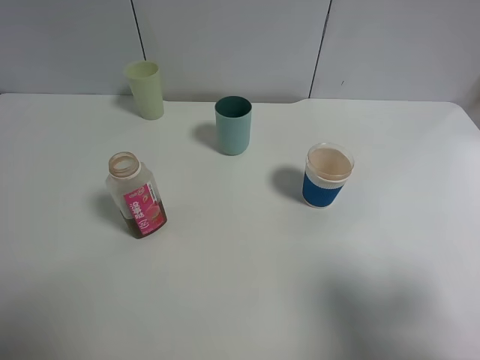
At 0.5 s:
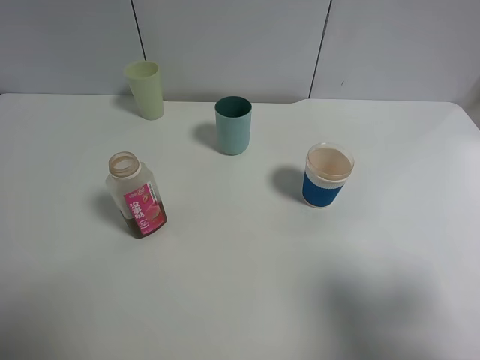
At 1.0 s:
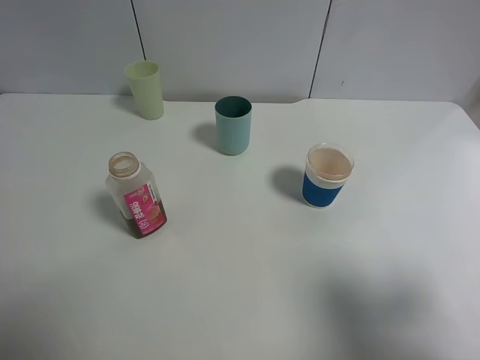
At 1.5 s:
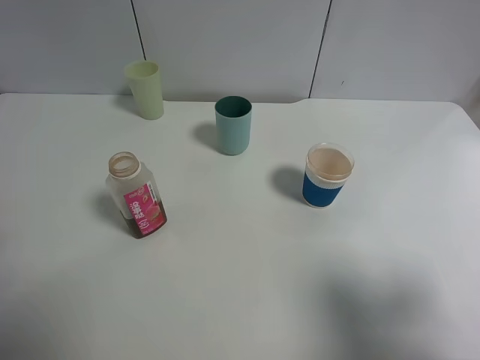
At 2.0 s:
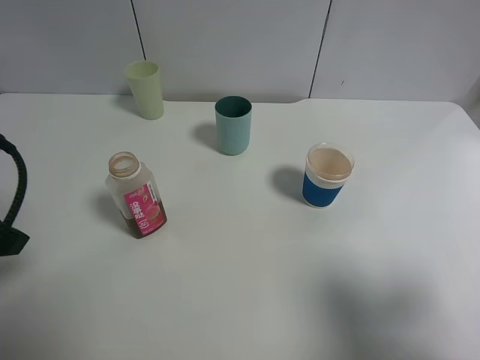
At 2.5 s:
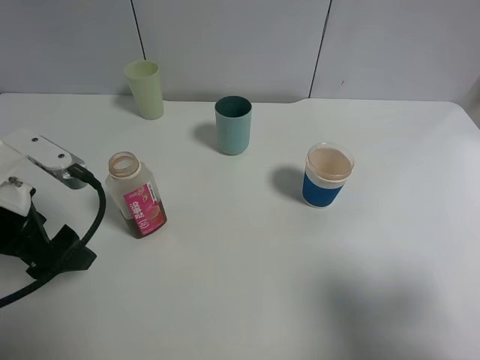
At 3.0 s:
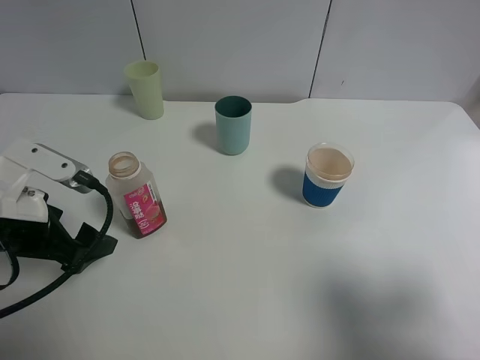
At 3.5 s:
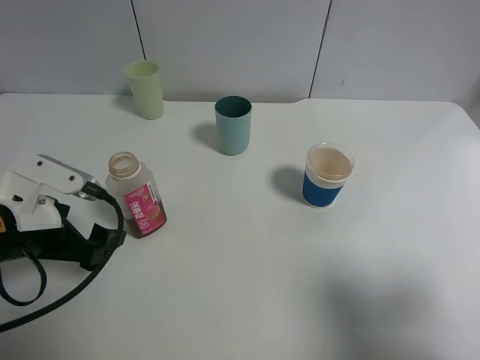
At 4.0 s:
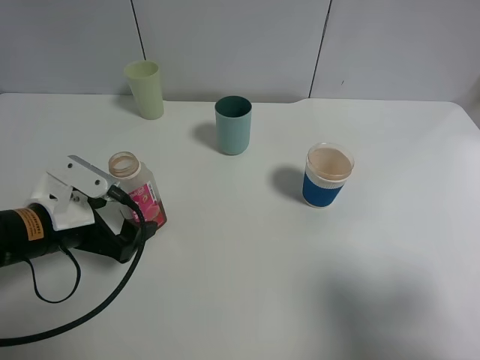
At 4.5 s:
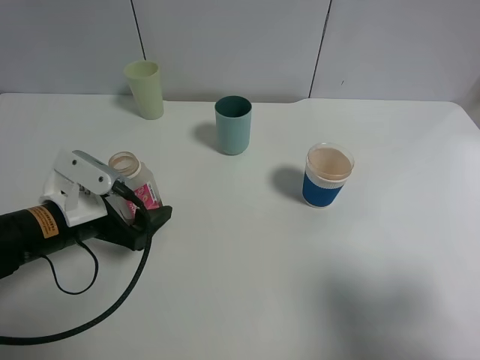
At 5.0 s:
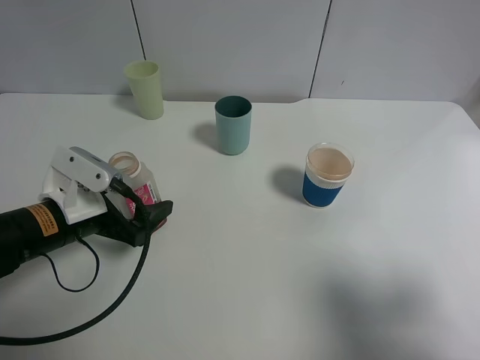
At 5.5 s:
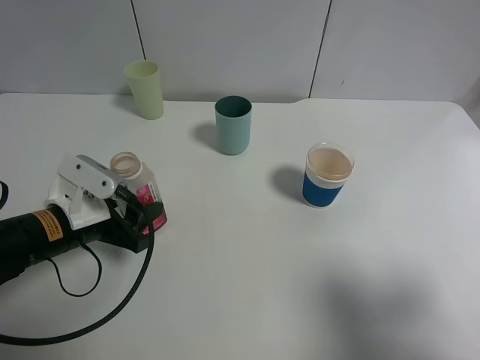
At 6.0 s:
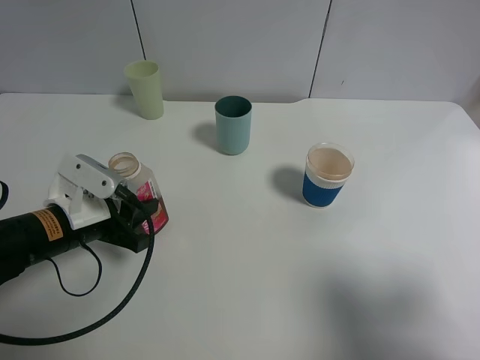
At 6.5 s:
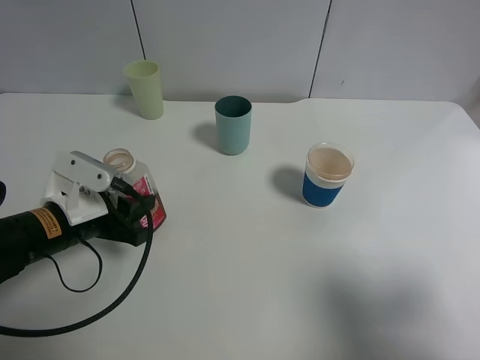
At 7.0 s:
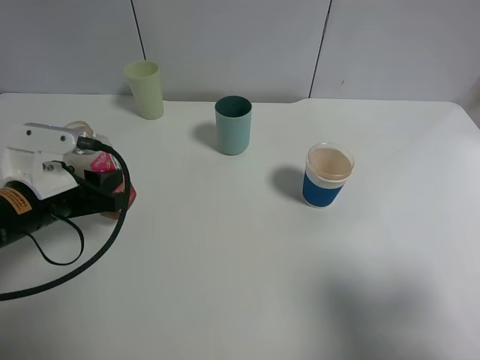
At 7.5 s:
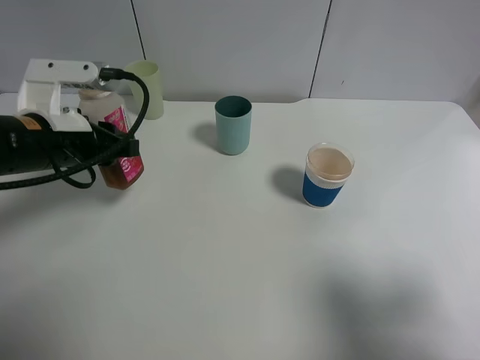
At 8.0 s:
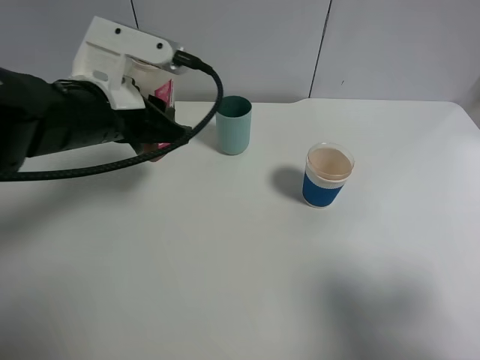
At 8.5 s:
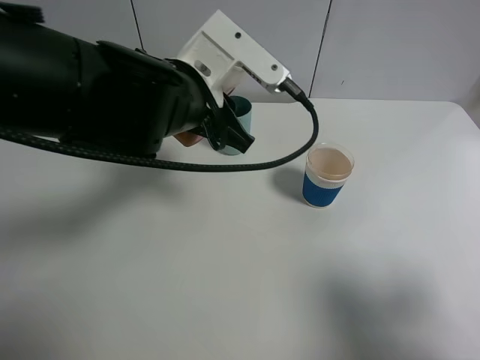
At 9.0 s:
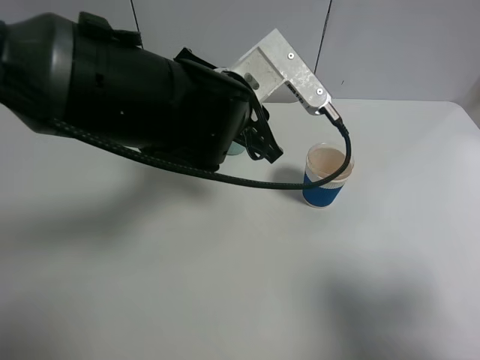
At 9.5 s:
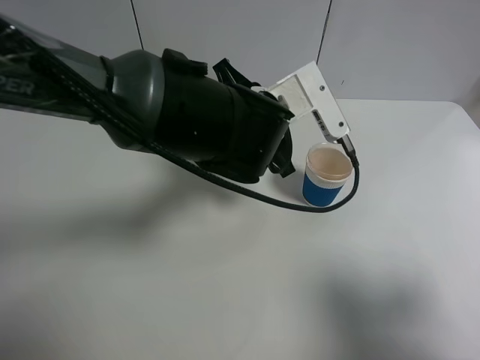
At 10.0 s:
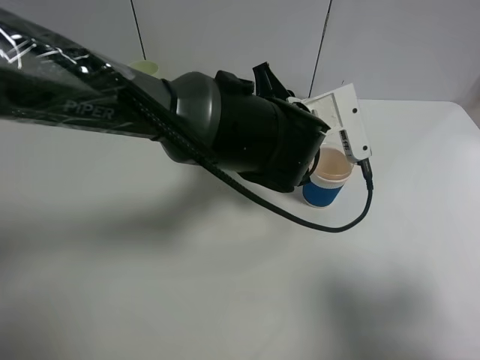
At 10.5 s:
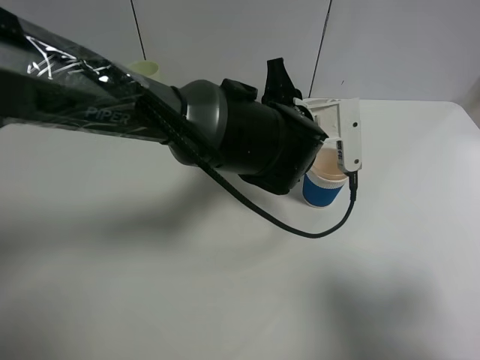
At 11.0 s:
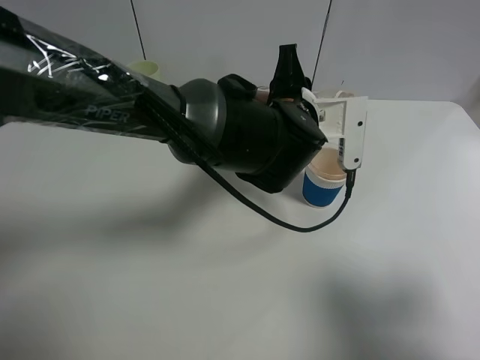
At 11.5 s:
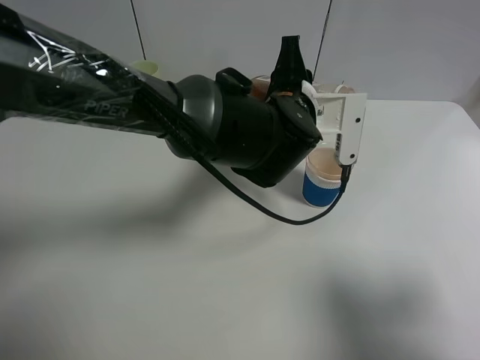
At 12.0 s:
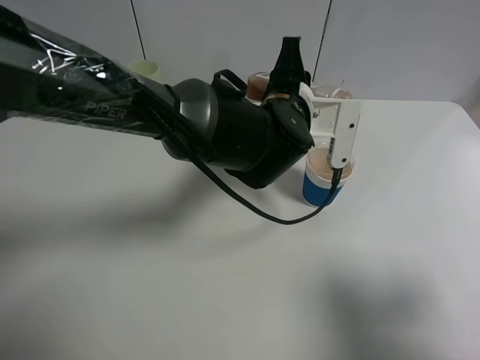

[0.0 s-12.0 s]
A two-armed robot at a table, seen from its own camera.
Task of the whole recording: use a clamp to hold the bottle of the drink, pour the beverage into a random cup, then clamp the cup containing the drink and pour the drink into another random cup.
Step, 0.0 to 7.0 s: Pick up the drink bottle with left gripper.
0.0 to 2.0 s: The left gripper moves forward, roughly 15 cm.
2.0 to 4.0 s: The left gripper goes some 15 cm downward and to the right.
4.0 to 6.0 s: The left gripper closes.
6.0 to 8.0 s: The left gripper travels upward and to the right by about 15 cm.
8.0 to 10.0 s: The left gripper travels to the right by approximately 20 cm.

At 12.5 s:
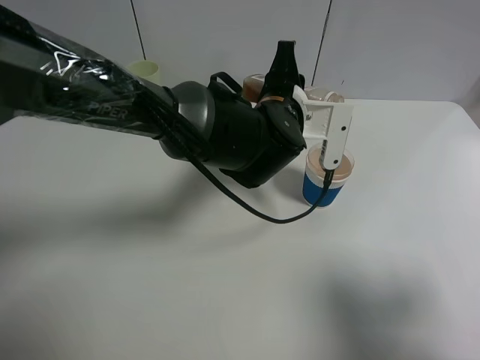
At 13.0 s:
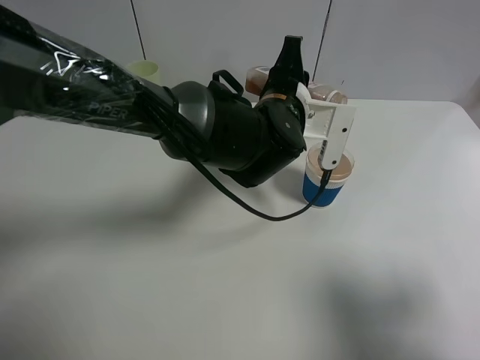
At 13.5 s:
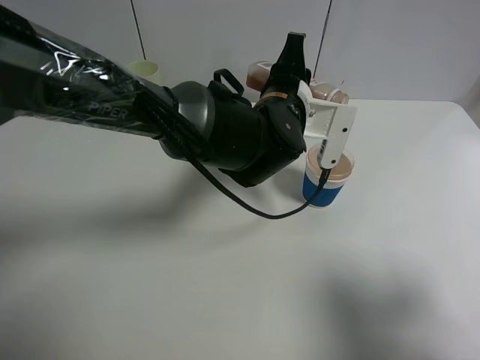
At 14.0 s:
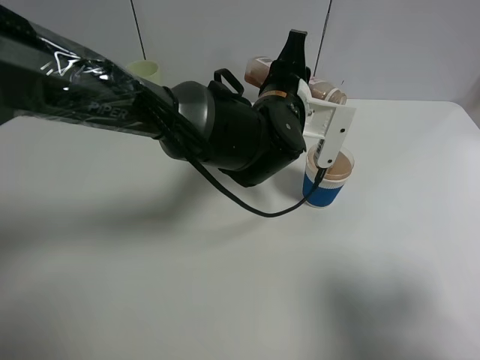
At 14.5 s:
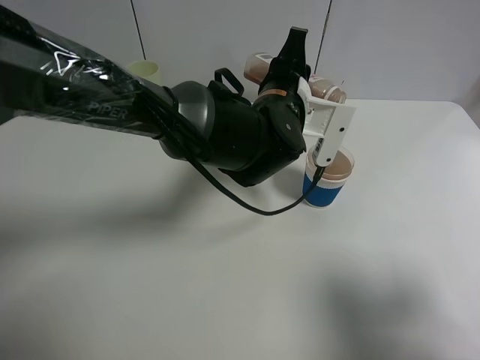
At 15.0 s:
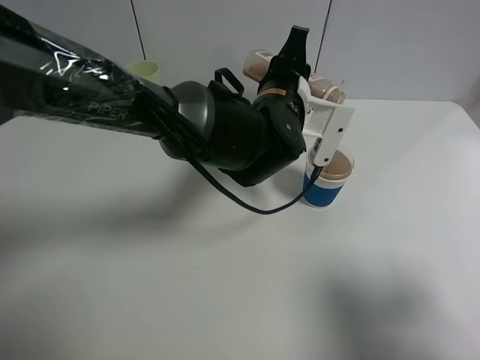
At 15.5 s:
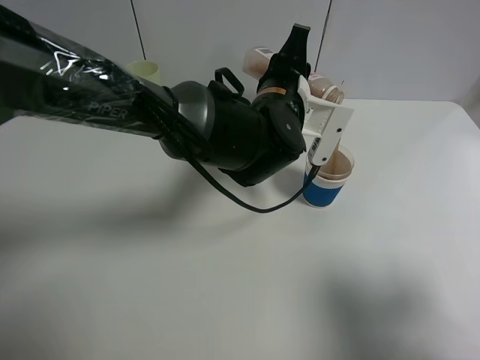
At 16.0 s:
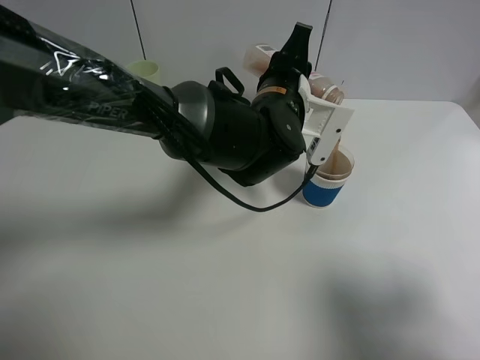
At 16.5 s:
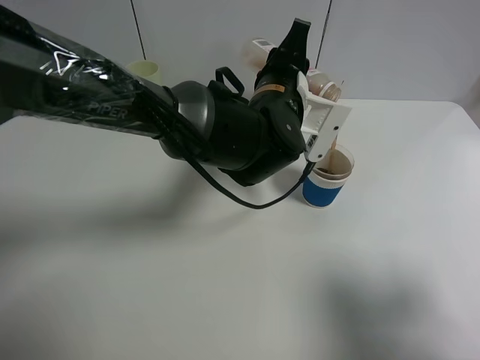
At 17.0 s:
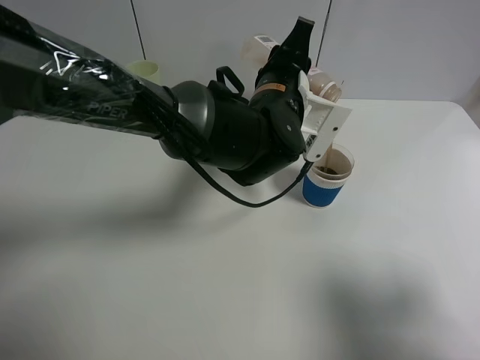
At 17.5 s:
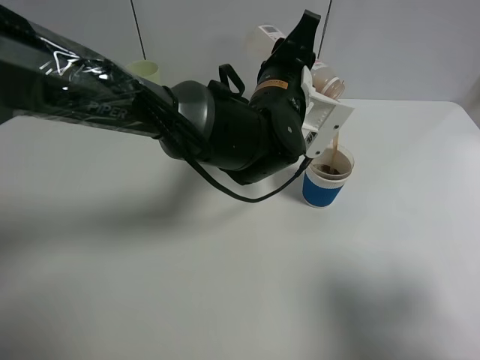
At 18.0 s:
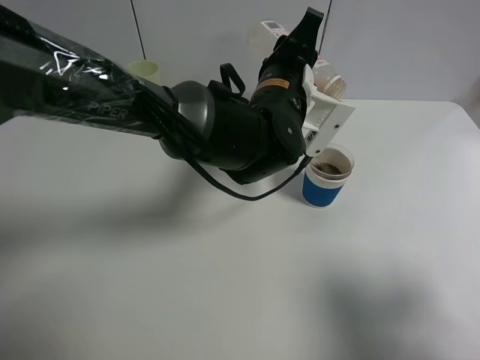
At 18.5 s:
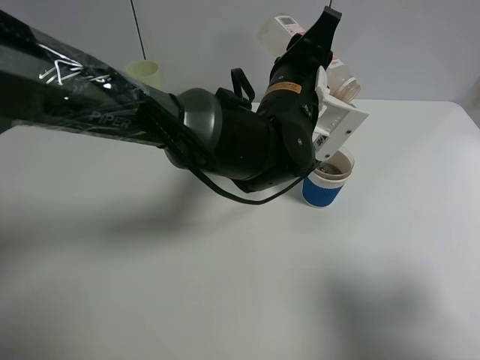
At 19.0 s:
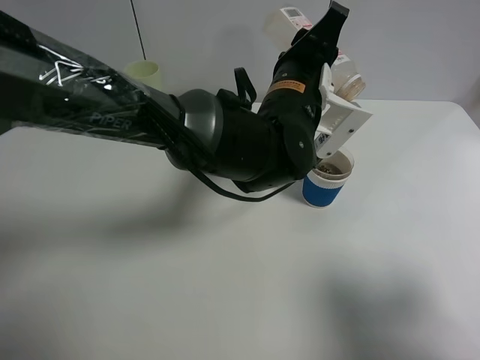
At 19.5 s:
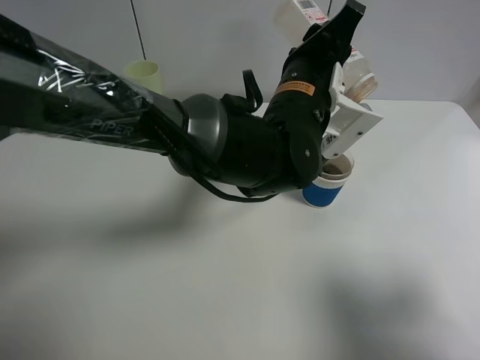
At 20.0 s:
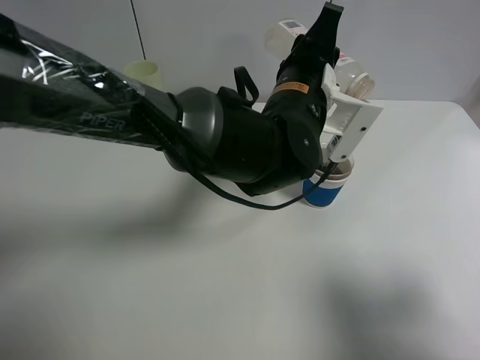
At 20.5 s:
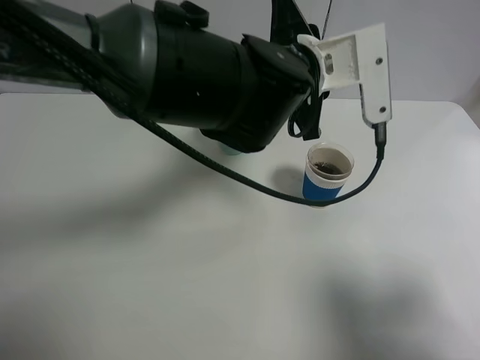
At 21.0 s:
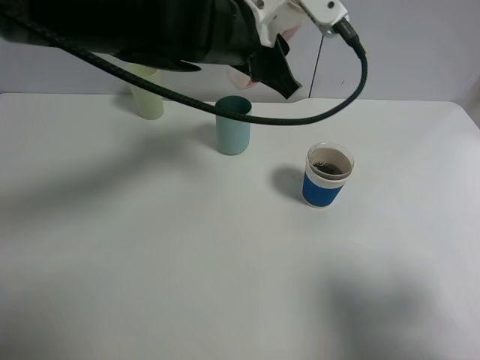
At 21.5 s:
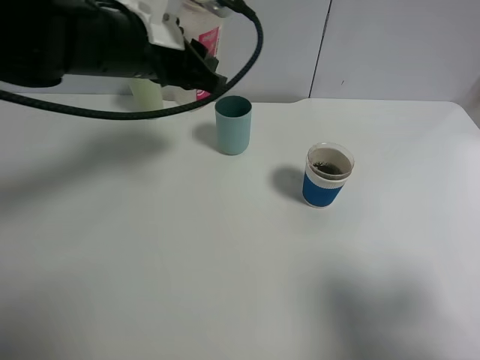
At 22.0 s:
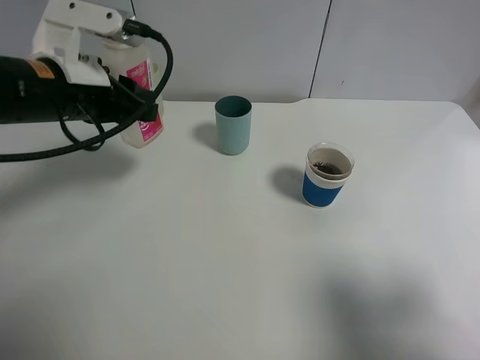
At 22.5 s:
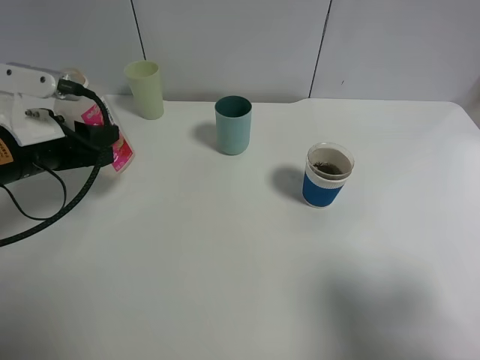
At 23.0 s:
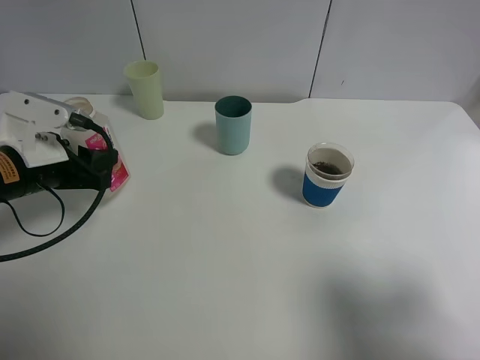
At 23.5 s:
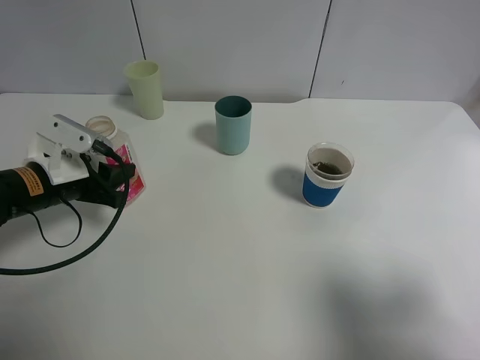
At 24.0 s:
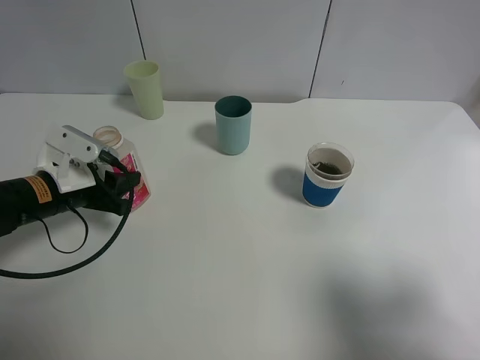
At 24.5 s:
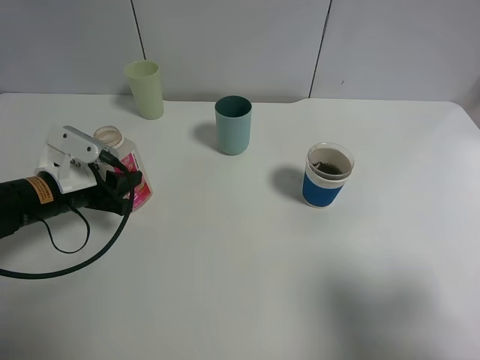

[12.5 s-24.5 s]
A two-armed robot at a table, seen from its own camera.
Task of the whole recording: use a clamp to hold the bottle of the drink, pour the beverage into a random cup, then clamp the cup containing the drink and pour the drink into another random cup.
Step, 12.5 to 20.0 s: Pour the drink into the paper cup with left gripper.
12.5 to 16.5 s: The grippers make only small movements.
16.5 to 18.5 s: The grippers stay close to where they were, moving slightly.
20.5 to 22.5 s: The left gripper moves to the left, some 30 cm.
22.5 to 24.5 s: The left gripper moves downward, roughly 10 cm.

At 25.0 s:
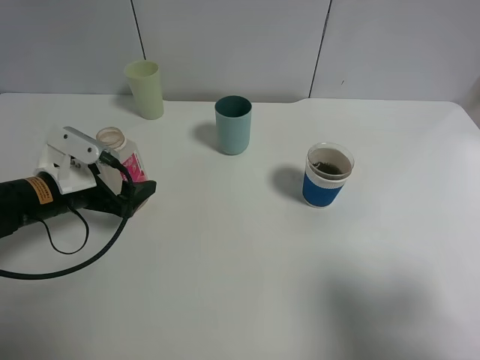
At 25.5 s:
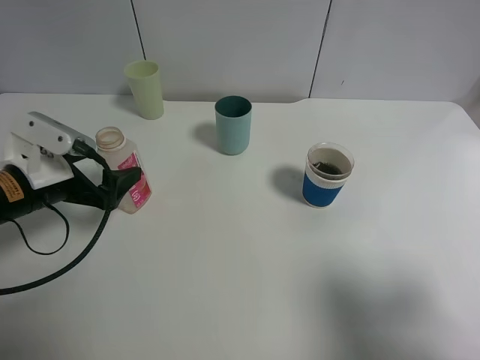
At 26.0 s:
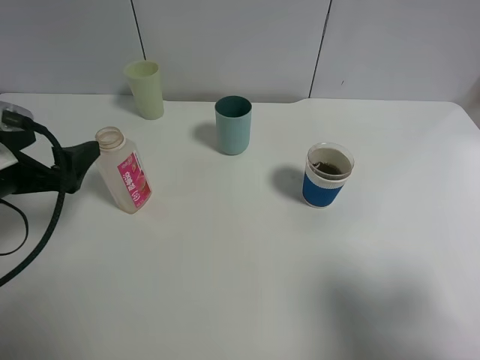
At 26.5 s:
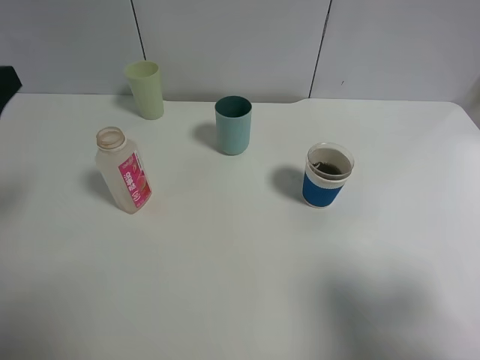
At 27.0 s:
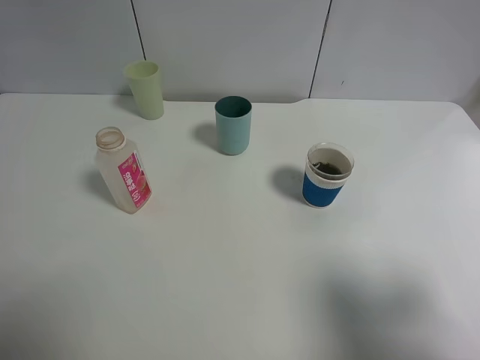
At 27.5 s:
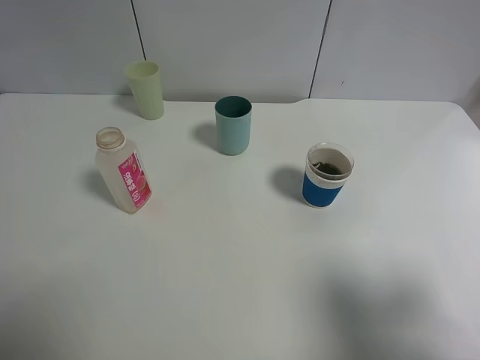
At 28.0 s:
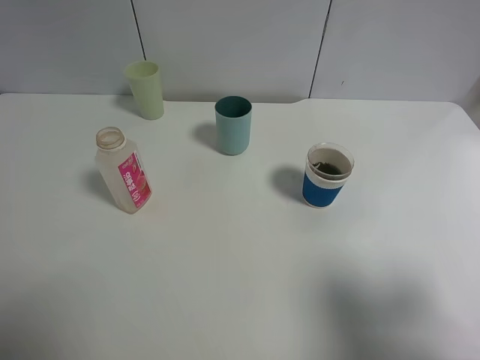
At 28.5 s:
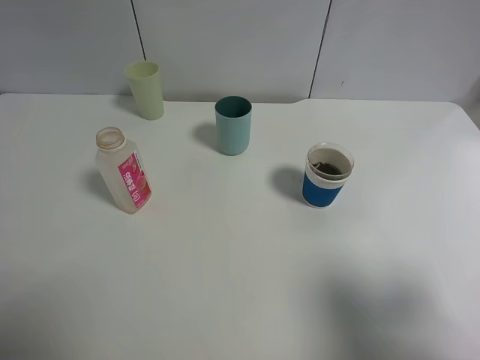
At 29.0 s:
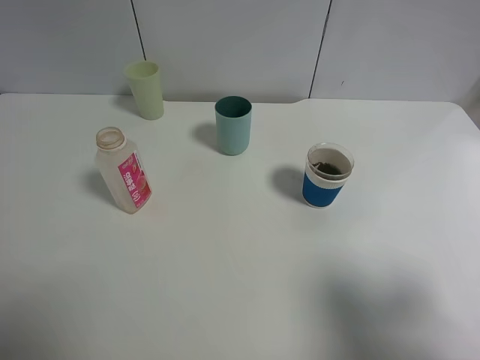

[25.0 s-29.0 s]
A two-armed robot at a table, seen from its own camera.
Task of the whole recording: use a clamp to hold the bottle of the drink, pour the beverage into a random cup, then clamp the cup containing the drink and pour the drink into another random cup.
25.0 to 27.0 s: The left gripper is displaced upward and backward by some 30 cm.
